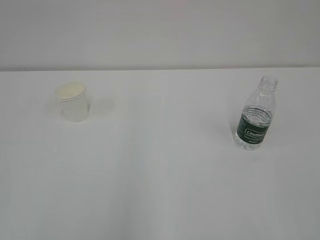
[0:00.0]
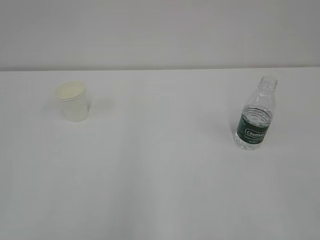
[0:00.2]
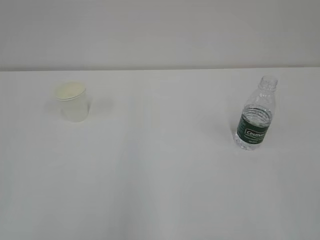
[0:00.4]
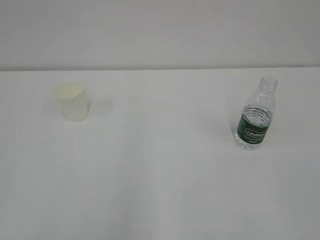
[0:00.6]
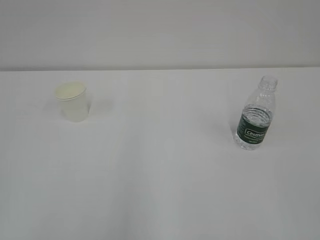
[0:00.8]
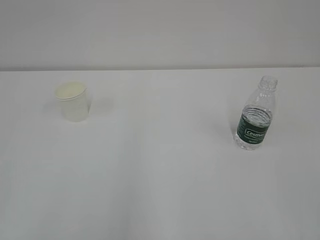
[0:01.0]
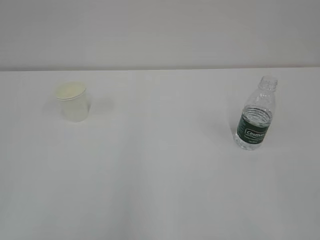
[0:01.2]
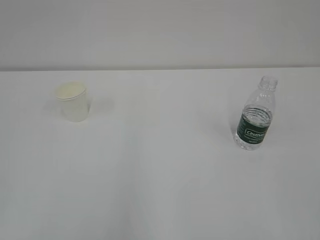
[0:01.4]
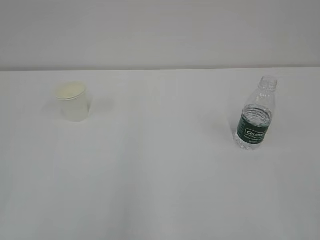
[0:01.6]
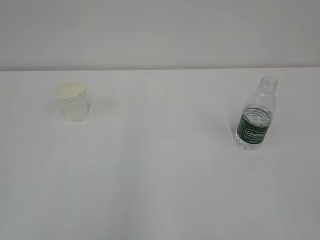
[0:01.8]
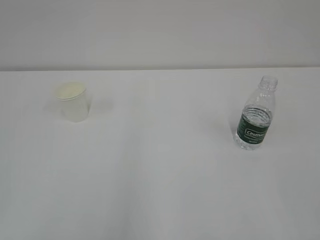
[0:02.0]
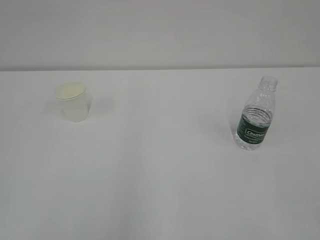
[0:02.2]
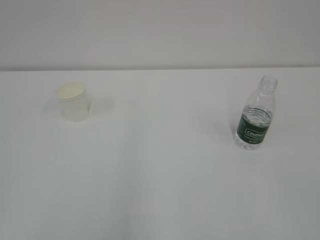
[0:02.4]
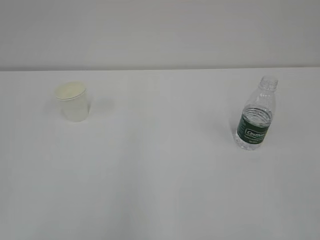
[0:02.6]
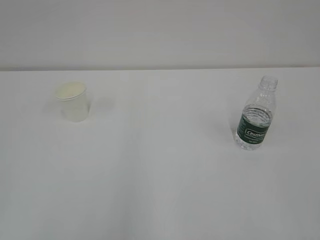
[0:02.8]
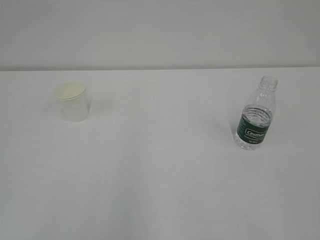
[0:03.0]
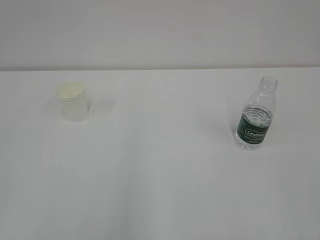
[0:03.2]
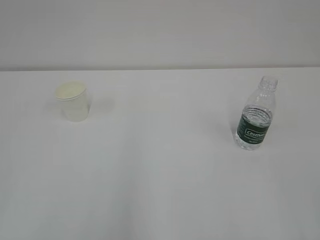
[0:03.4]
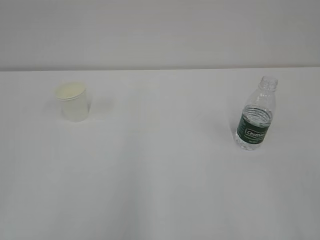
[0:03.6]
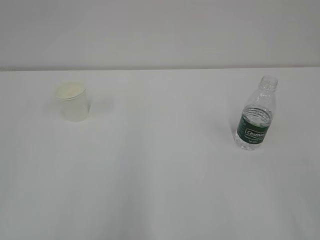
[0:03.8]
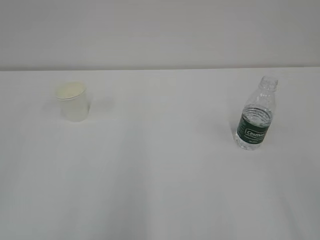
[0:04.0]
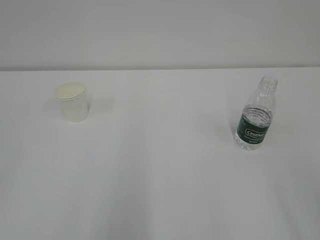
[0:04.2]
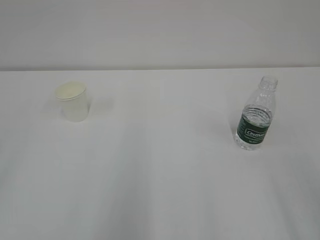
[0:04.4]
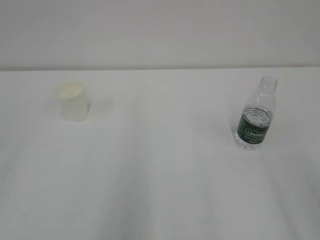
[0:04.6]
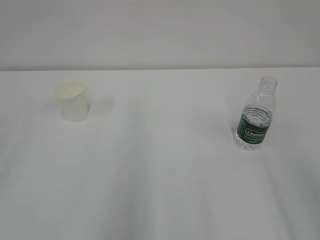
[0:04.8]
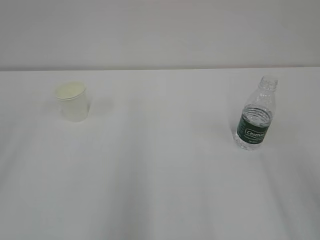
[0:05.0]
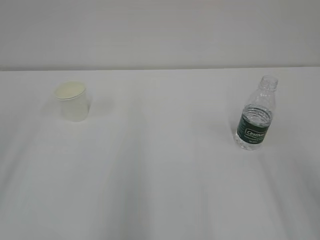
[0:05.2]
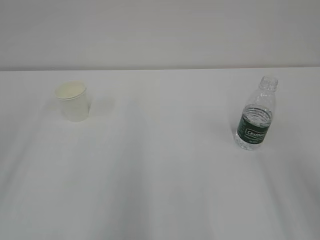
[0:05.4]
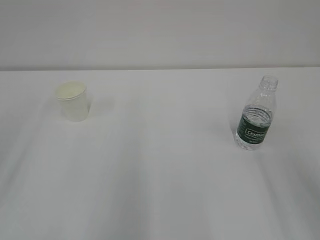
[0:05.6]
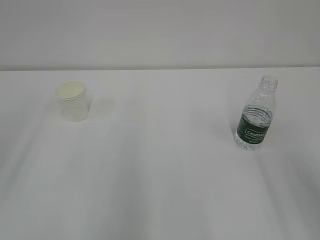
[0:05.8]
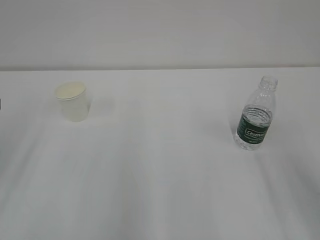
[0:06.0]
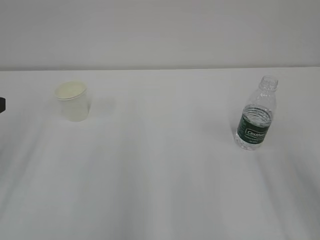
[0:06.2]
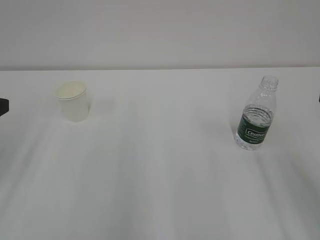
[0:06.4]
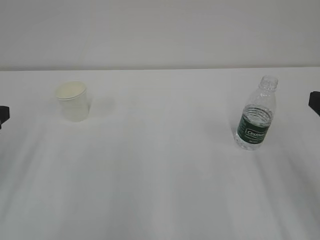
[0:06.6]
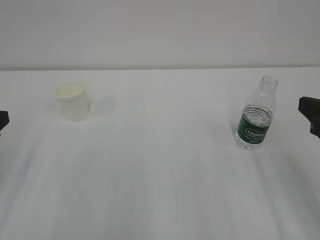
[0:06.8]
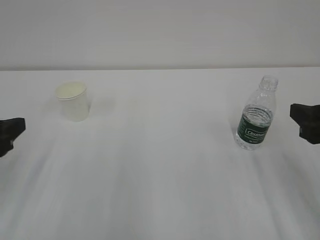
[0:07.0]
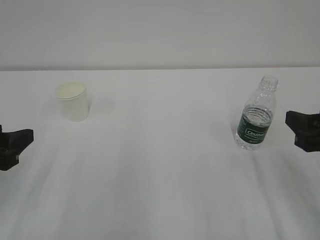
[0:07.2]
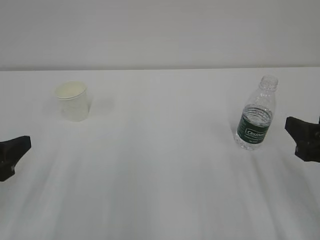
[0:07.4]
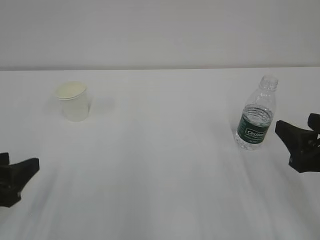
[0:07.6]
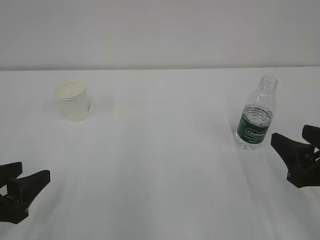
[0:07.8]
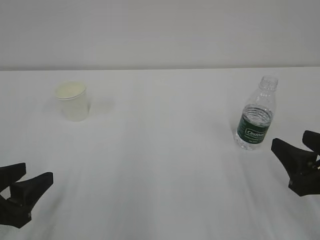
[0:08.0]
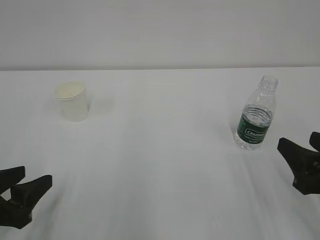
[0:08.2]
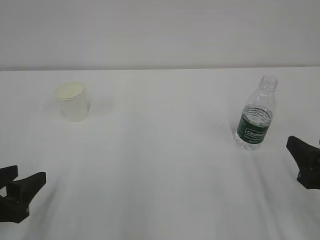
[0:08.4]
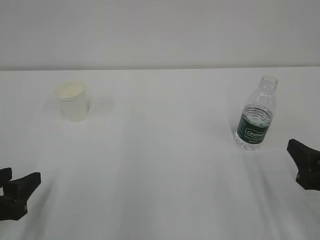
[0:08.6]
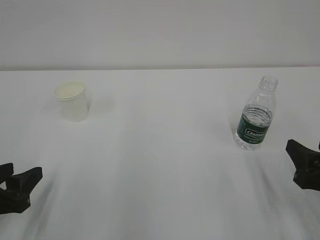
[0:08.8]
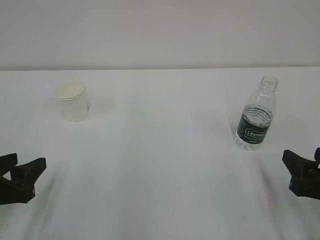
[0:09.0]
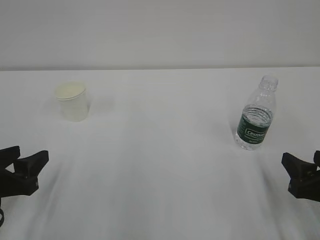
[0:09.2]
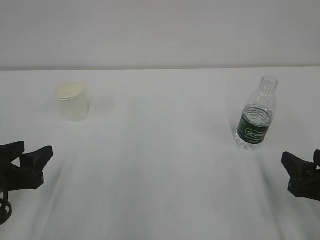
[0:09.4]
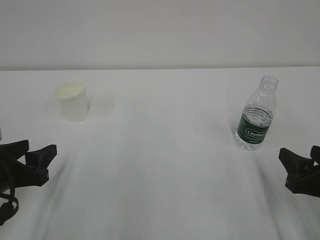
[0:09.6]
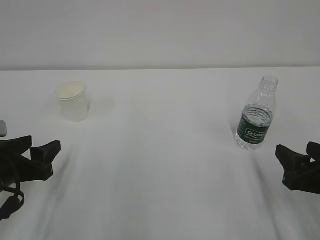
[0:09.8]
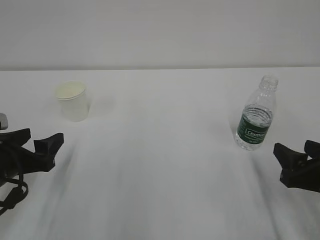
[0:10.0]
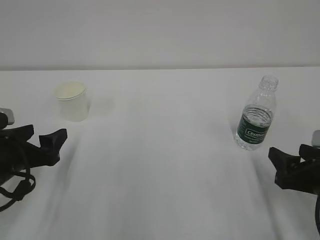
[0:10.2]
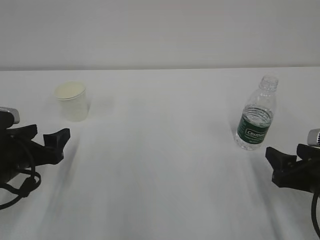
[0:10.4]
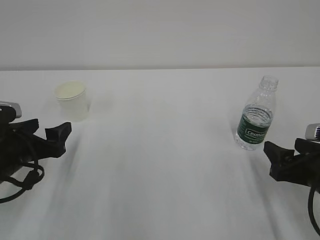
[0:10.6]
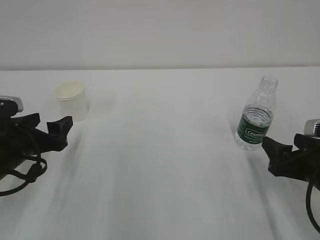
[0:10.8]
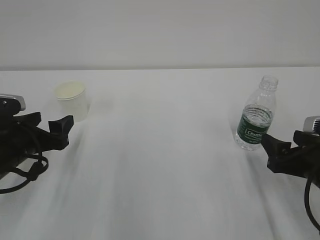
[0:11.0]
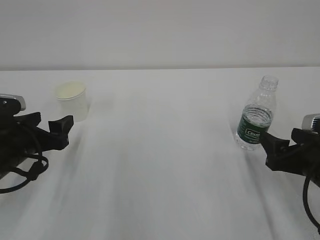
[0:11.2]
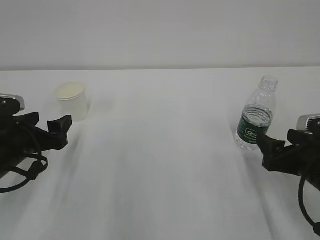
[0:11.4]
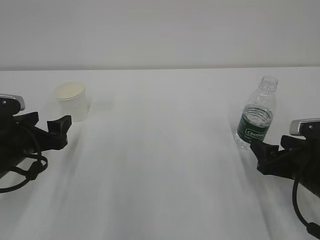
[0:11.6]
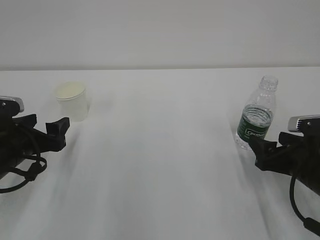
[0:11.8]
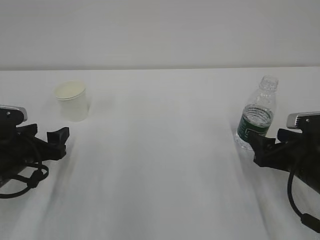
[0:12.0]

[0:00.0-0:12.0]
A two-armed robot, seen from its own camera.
0:01.6 to 0:03.0: The two grippers keep their place.
0:06.0 to 0:07.6: The left gripper goes roughly 10 cm downward and backward. The right gripper moves downward, some 10 cm.
0:07.6 to 0:09.0: The right gripper shifts approximately 5 cm downward.
0:09.0 to 0:10.4: The left gripper is displaced forward by approximately 5 cm, and opens up.
0:10.4 to 0:12.0: There are only small adjustments of the grippers.

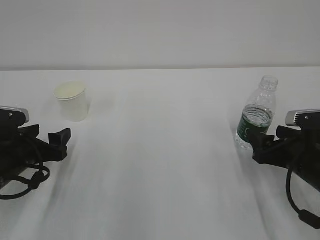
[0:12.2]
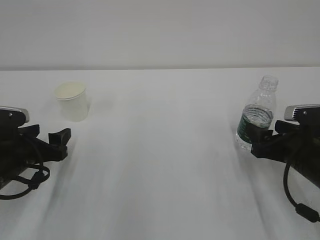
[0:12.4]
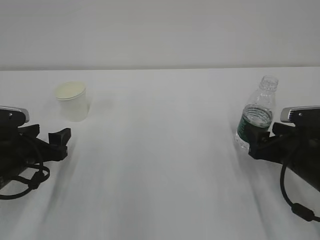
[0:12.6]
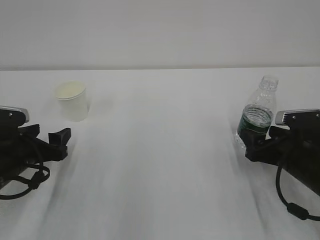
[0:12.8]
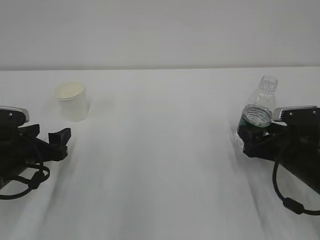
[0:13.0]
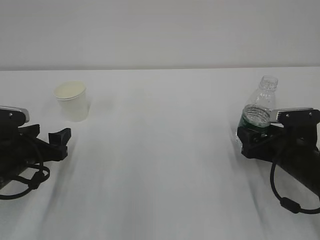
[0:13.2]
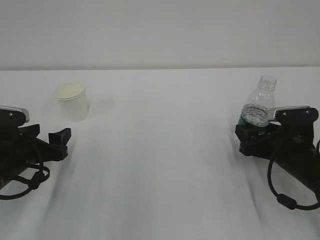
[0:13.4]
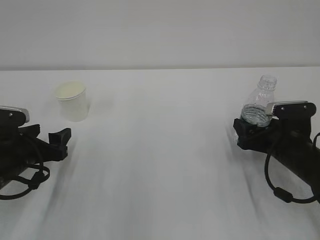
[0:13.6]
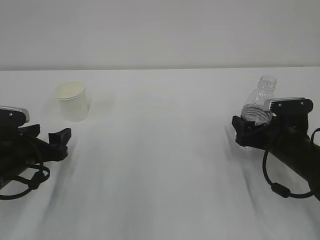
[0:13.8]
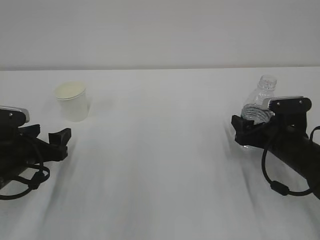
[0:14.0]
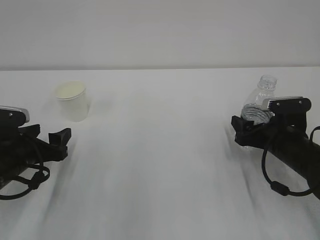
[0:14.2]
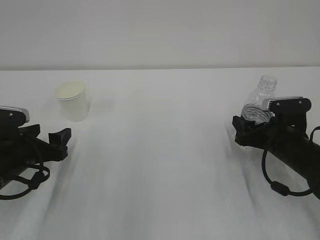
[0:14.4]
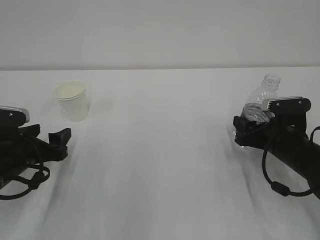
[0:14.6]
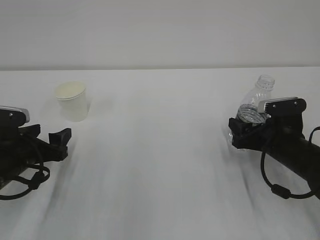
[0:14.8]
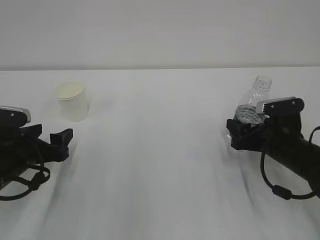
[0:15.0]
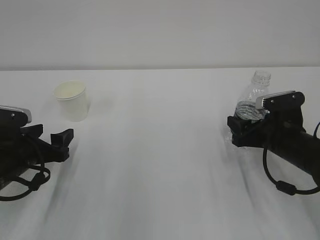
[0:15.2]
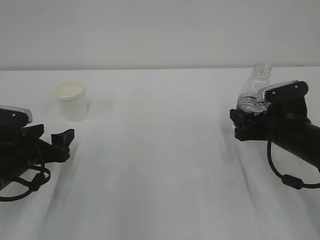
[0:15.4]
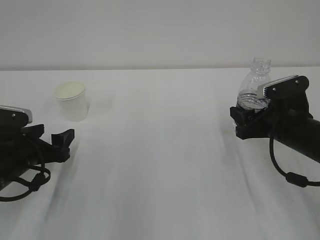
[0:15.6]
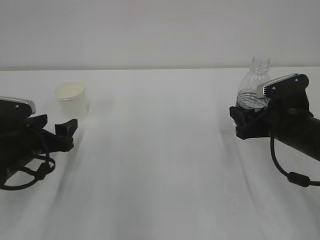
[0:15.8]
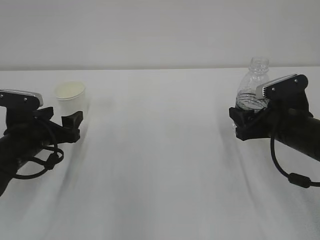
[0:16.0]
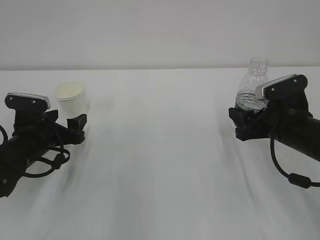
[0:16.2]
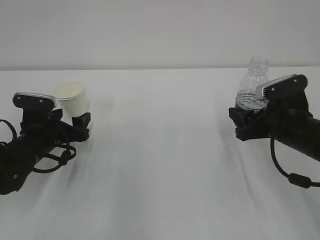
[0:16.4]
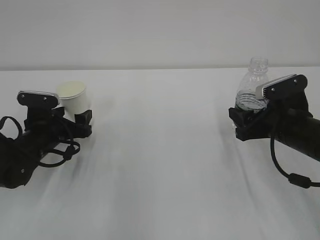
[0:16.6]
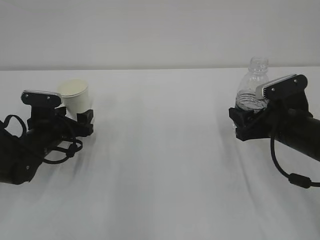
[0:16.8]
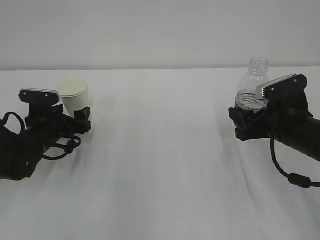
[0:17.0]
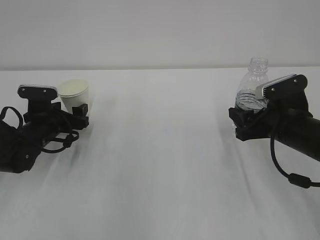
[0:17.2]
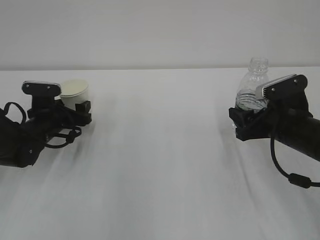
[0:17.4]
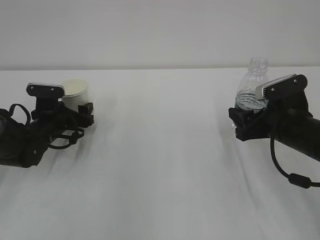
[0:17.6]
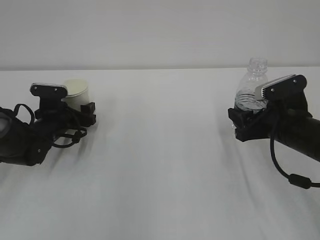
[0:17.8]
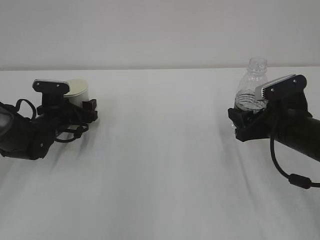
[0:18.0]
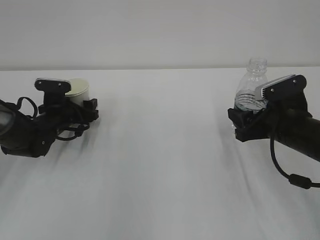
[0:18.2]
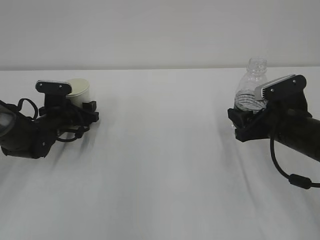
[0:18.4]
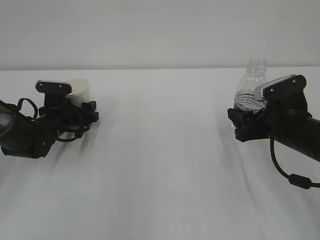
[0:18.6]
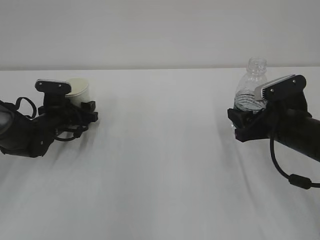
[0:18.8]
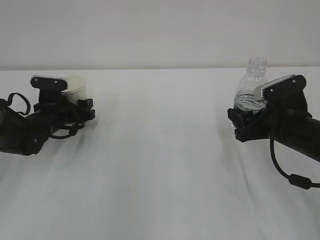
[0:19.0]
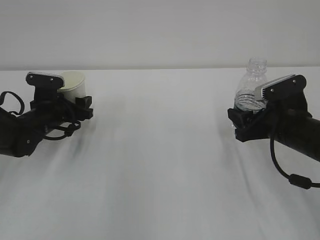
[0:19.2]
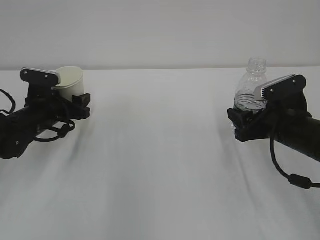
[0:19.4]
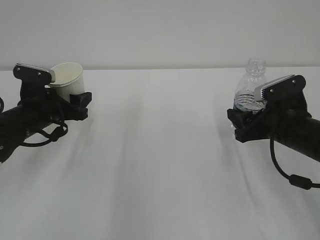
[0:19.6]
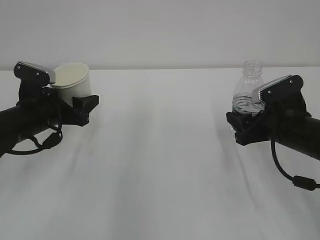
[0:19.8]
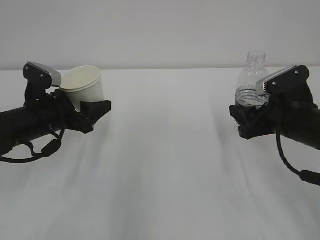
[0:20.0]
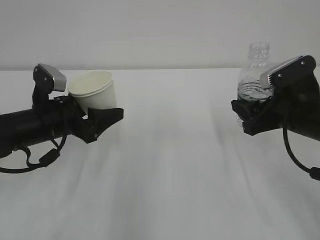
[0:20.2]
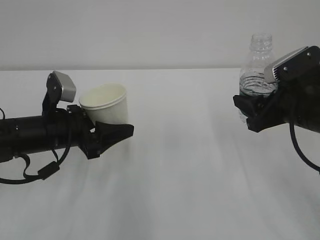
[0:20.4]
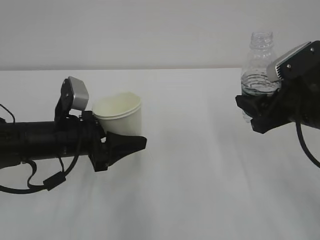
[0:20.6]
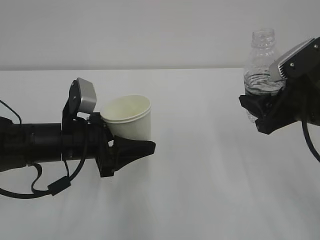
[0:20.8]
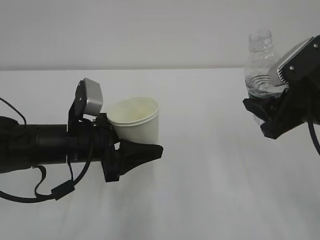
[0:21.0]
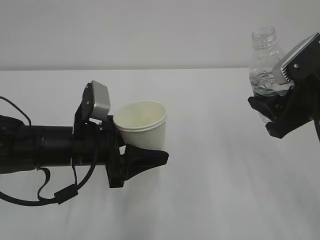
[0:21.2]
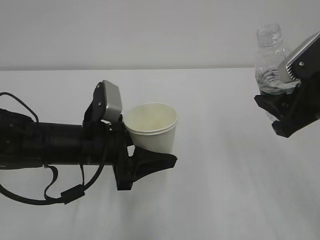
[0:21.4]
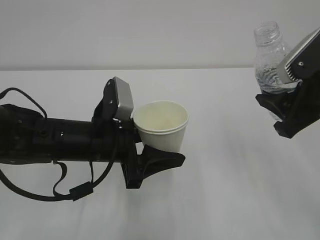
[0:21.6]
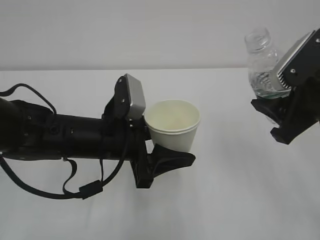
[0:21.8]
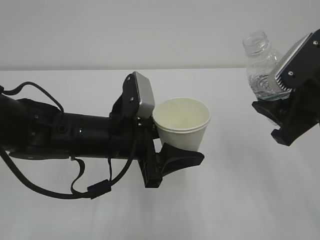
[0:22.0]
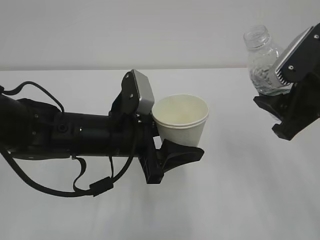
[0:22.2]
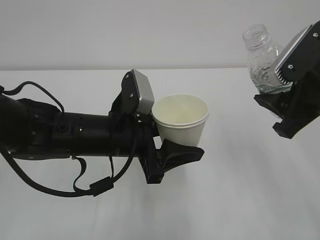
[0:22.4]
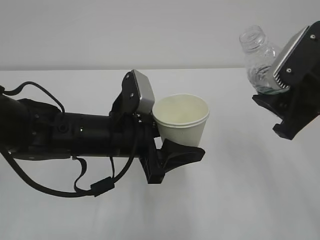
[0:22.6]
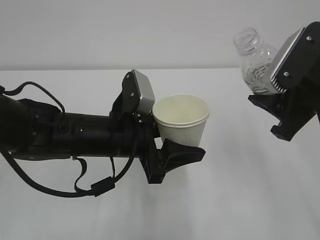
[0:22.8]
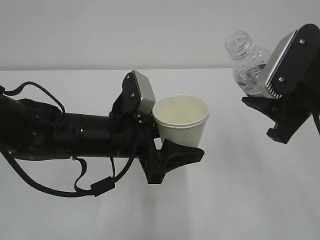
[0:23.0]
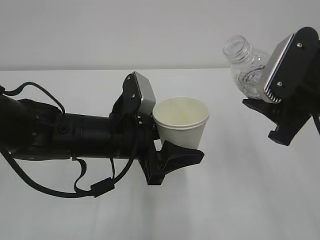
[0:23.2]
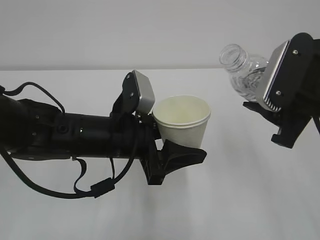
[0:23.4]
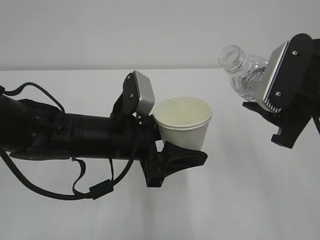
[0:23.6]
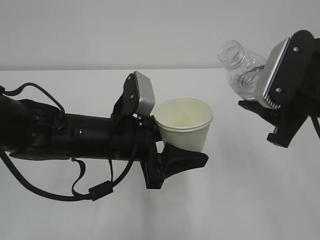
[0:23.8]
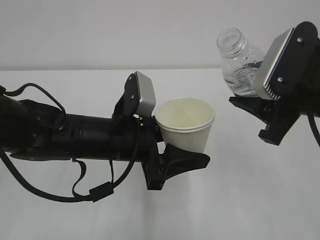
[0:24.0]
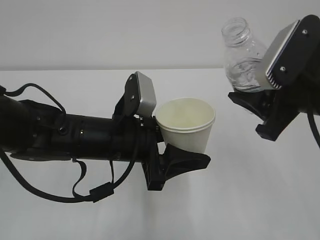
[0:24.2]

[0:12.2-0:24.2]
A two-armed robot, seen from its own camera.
0:12.2 to 0:13.8: The right gripper is displaced forward by approximately 5 cm.
0:13.8 to 0:15.2: The right gripper closes up.
0:15.2 to 0:16.6: The left gripper travels forward by approximately 5 cm.
0:16.6 to 0:18.2: The left gripper is displaced forward by some 5 cm.
0:18.2 to 0:19.8: The left gripper goes about 10 cm backward and upward, and closes.
0:19.8 to 0:21.2: The right gripper heads upward and backward, covering some 10 cm. The left gripper shifts approximately 15 cm to the right and backward.
0:21.2 to 0:22.6: The left gripper goes about 5 cm to the right.
0:22.6 to 0:24.2: There are only small adjustments of the grippers.
